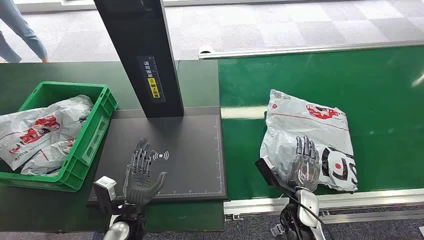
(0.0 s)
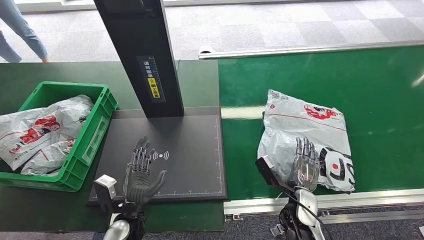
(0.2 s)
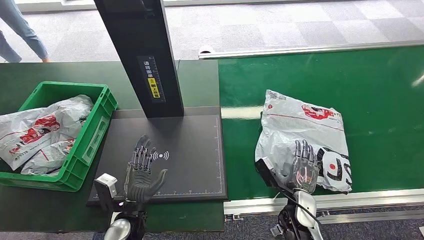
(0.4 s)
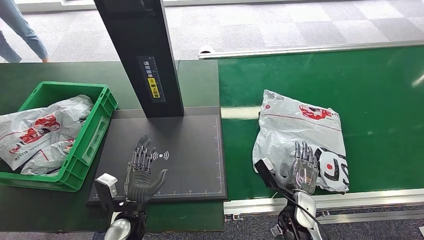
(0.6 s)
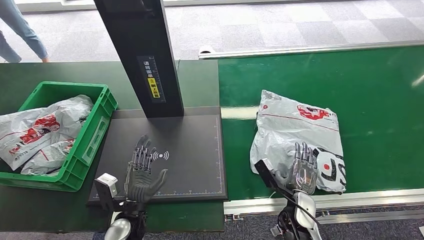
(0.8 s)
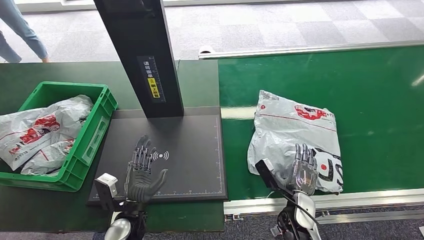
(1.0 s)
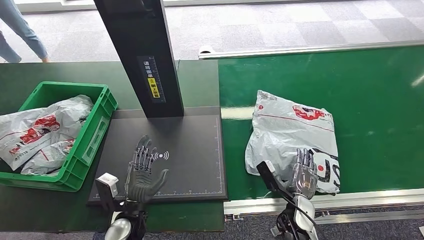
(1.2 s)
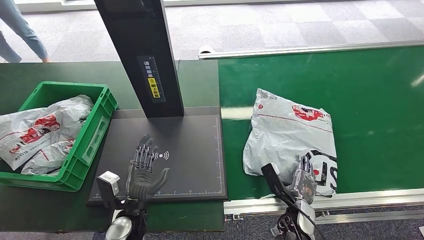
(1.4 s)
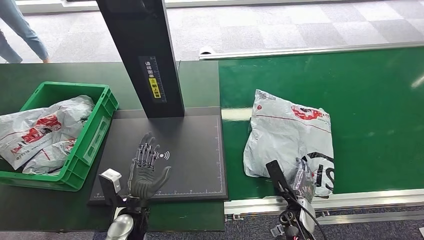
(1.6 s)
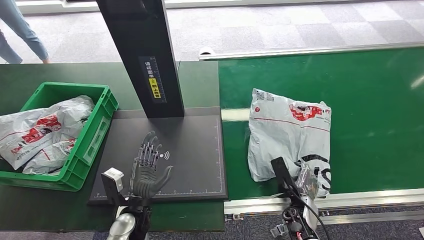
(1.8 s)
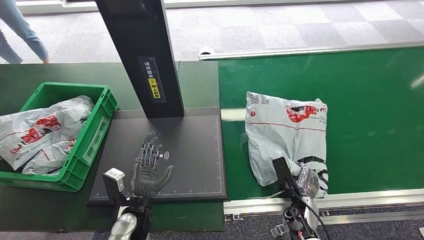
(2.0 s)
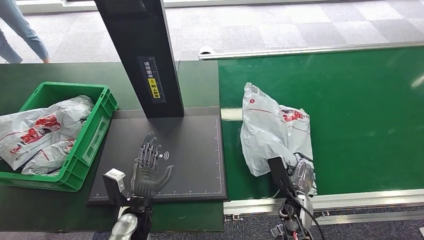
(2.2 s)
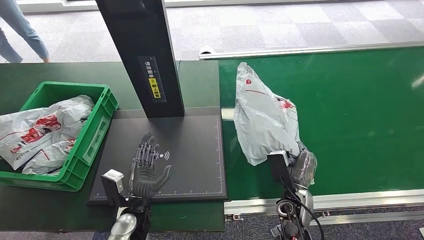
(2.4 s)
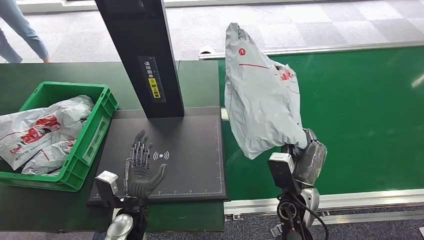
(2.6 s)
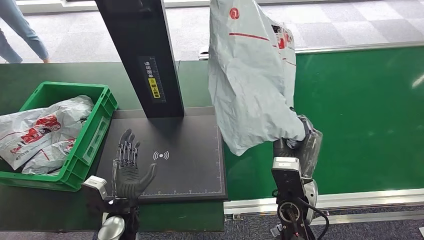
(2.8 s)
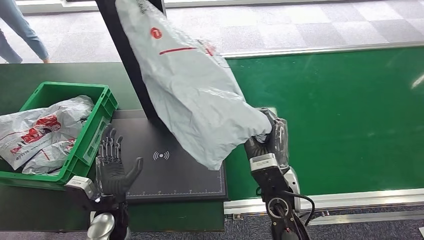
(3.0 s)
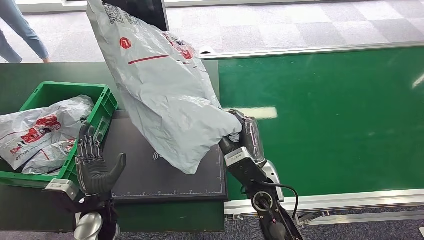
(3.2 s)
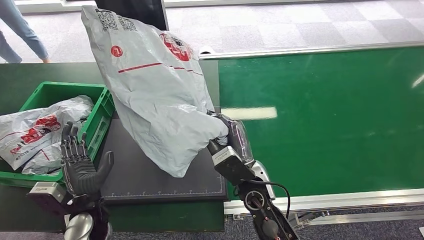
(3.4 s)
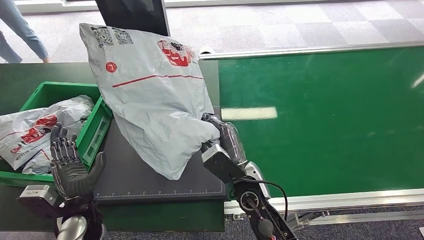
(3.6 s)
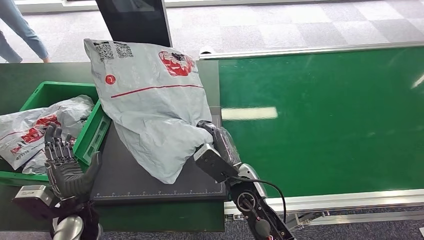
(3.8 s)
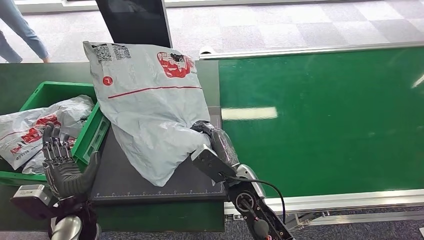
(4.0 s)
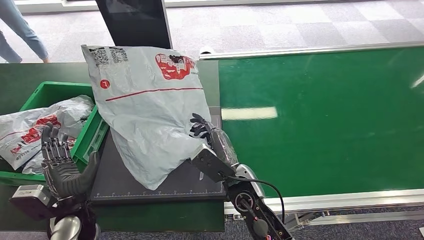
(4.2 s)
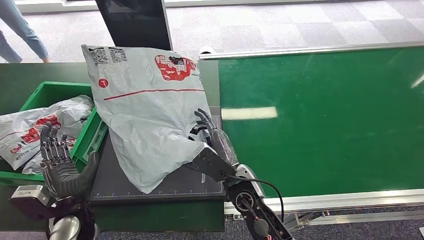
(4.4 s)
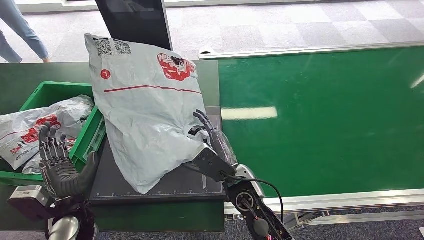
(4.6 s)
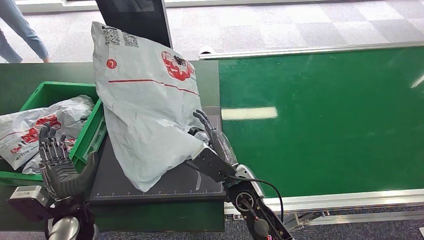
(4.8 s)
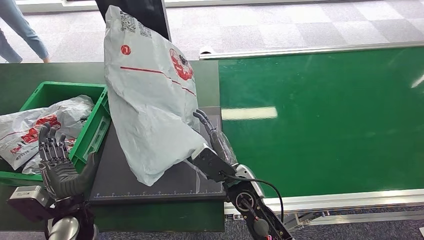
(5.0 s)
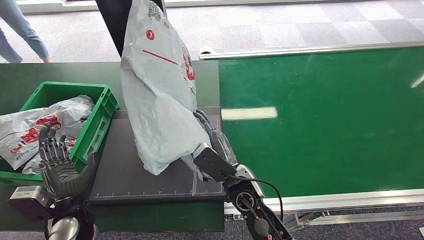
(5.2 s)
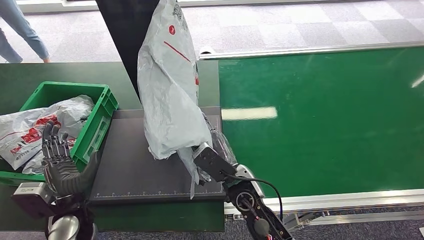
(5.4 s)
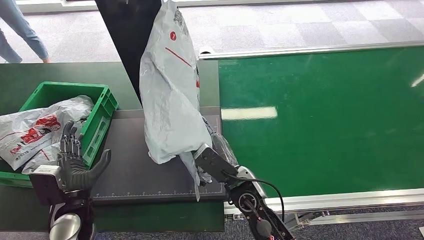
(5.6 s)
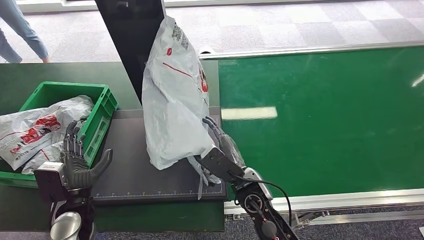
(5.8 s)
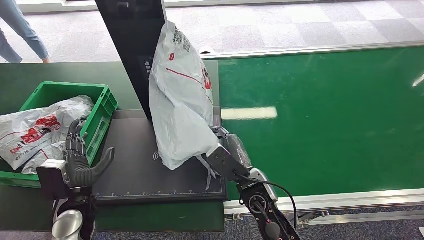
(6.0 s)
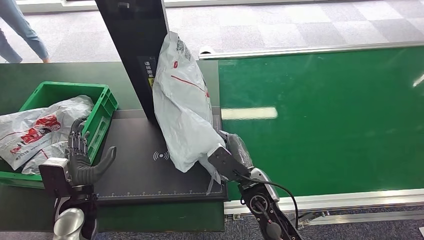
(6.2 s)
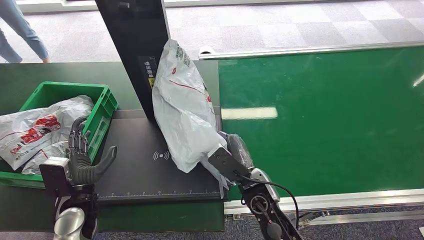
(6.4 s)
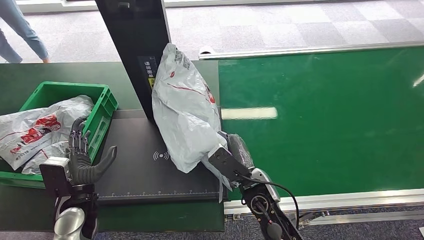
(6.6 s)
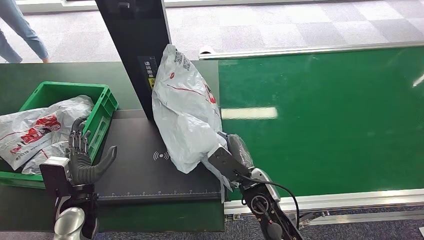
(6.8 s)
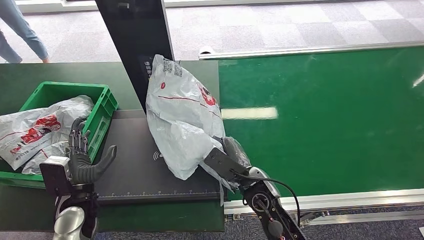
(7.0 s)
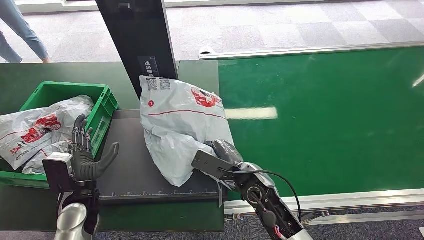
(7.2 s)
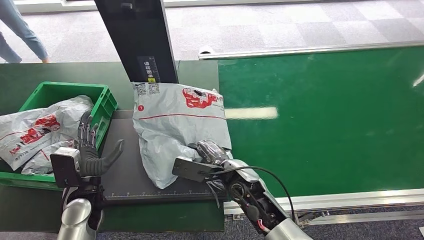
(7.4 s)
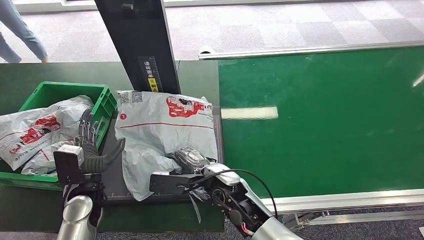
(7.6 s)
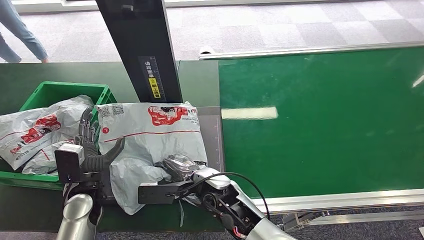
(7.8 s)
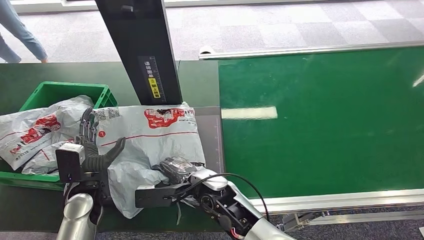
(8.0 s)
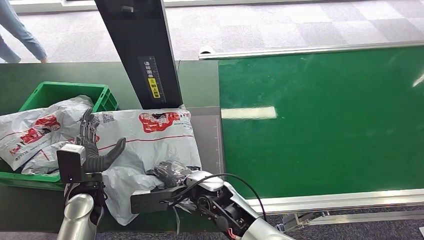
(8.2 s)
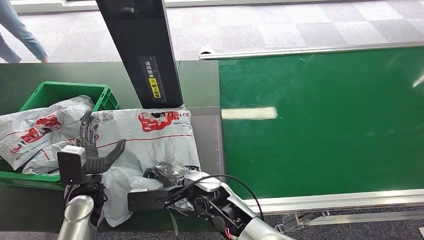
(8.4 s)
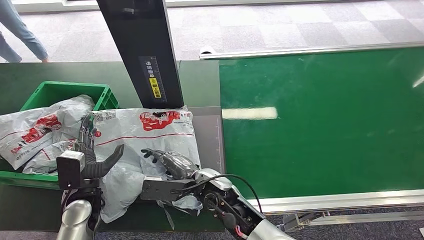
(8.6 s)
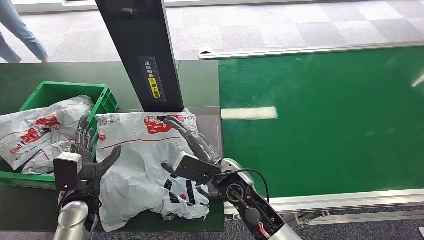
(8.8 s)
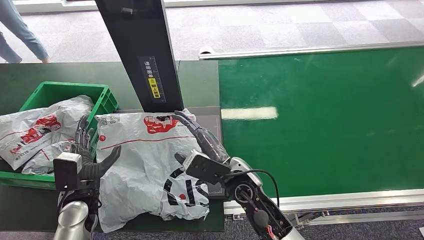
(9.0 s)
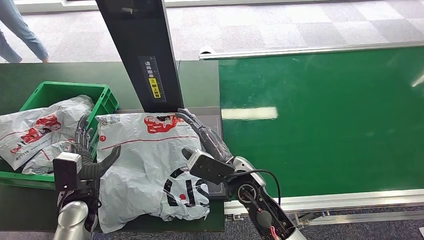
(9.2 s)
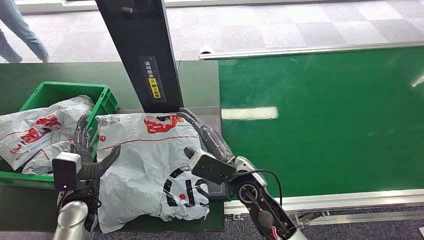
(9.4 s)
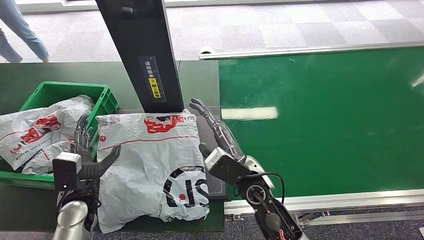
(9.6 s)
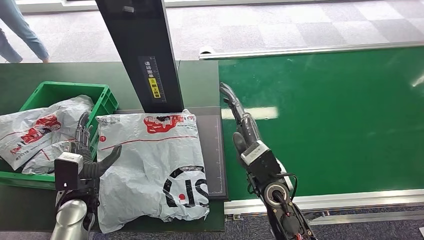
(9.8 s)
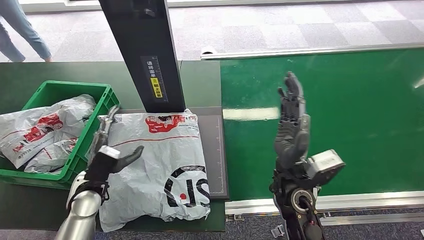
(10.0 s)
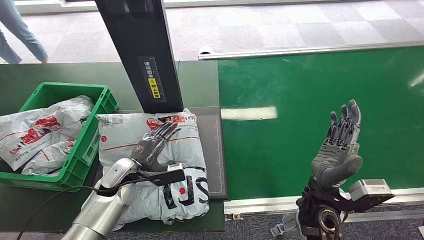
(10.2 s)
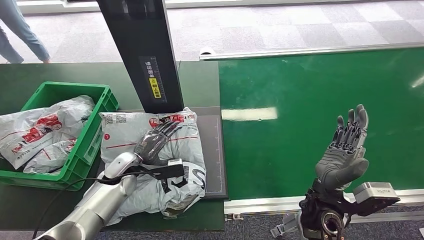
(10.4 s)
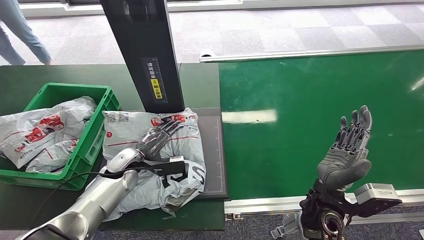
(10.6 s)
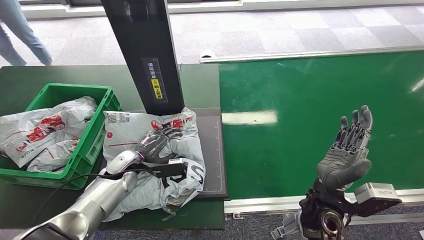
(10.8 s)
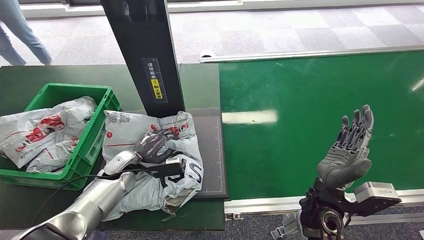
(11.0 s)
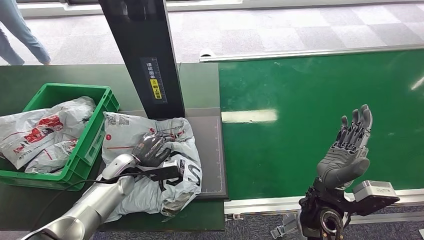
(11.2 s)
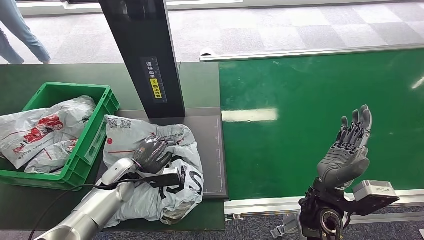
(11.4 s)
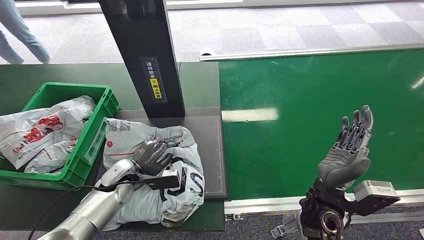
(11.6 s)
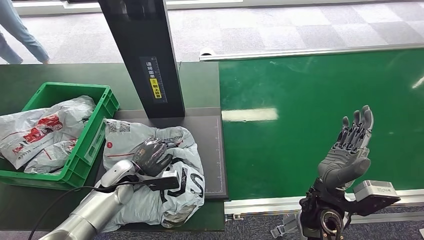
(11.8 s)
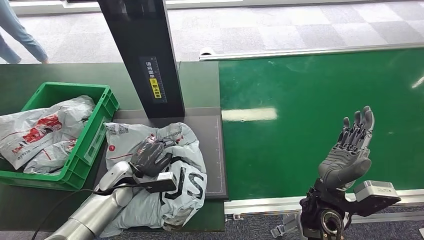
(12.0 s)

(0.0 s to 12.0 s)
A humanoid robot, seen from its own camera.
Step, 0.0 s - 3.4 s: Pick up the package from the conveyor belt.
Step, 3.6 s - 9.8 s: Place the package onto the inbound machine.
4.4 s - 6.0 s: The hands stay close to where they were, moving slightly.
6.0 s - 7.6 s: The right hand shifts roughly 5 cm to the left.
10.4 s - 12.0 s: The hands stay close to where they were, moving slightly.

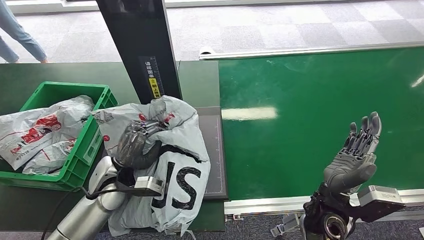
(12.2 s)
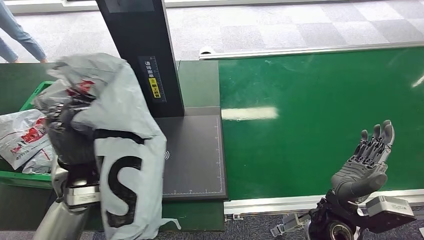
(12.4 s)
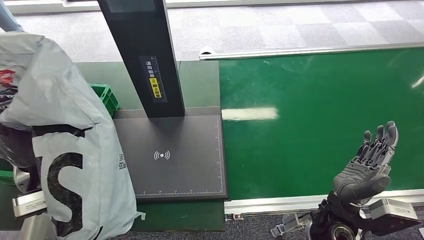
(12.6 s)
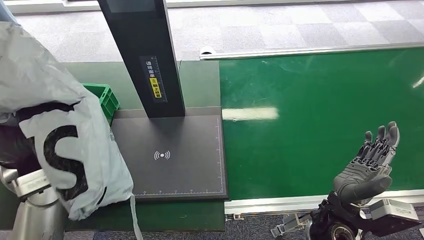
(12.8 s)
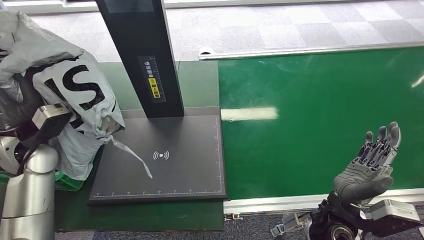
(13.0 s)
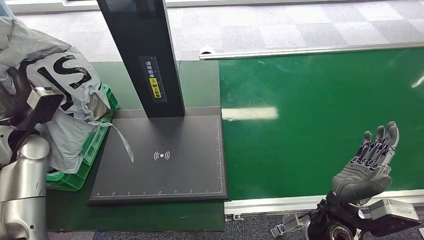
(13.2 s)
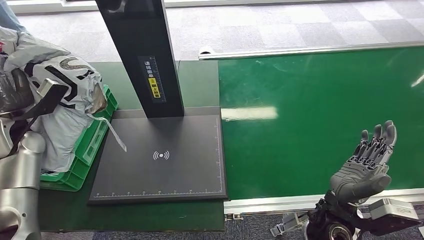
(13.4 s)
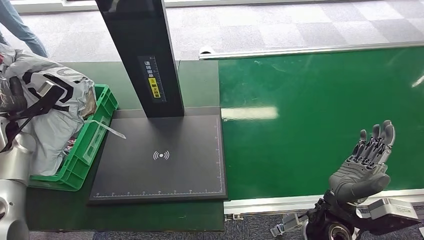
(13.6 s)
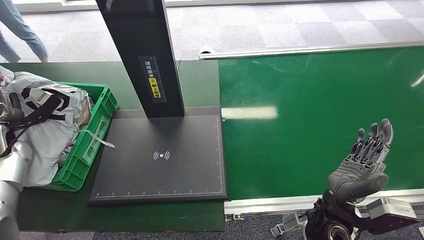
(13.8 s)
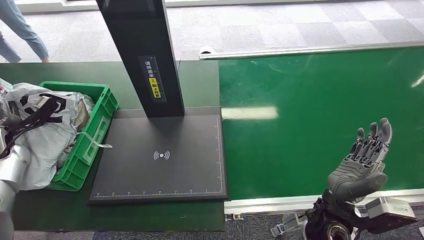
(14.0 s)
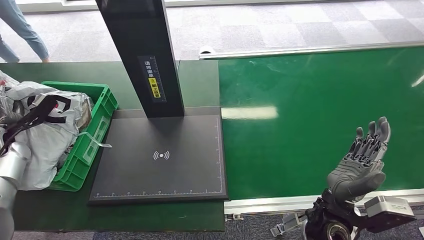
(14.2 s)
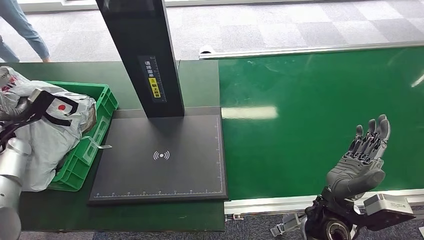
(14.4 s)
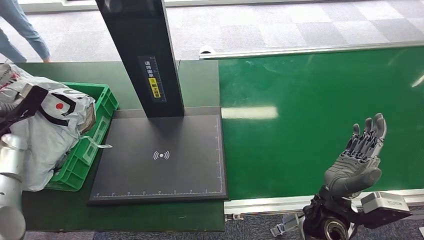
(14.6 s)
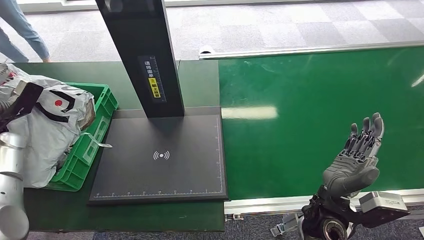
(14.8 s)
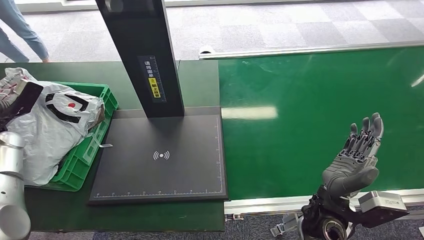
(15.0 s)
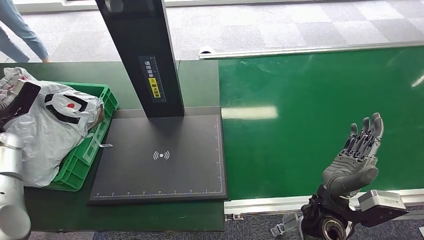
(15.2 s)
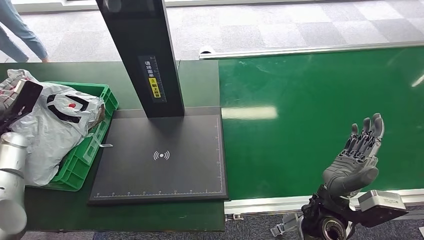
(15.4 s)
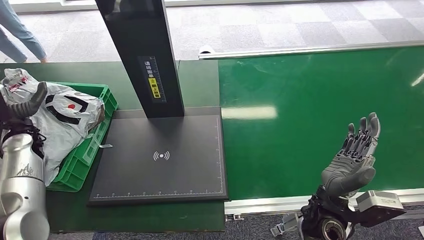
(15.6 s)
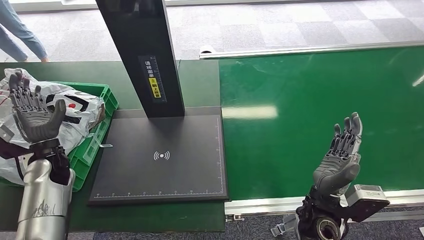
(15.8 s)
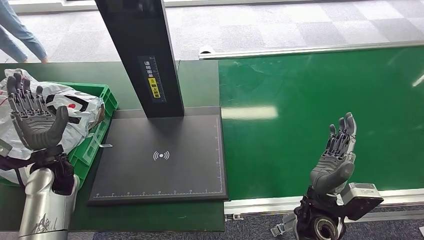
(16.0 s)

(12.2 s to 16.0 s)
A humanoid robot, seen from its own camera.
Step, 12.6 s - 16.0 s: Place the package into the parcel locker.
13.4 s - 14.8 s: The left hand heads to the left, covering approximately 10 cm.
14.8 s - 16.0 s: The left hand heads to the right, covering roughly 15 cm.

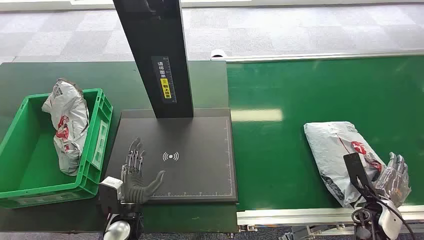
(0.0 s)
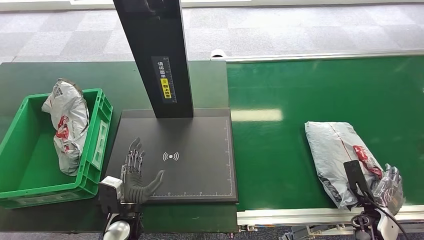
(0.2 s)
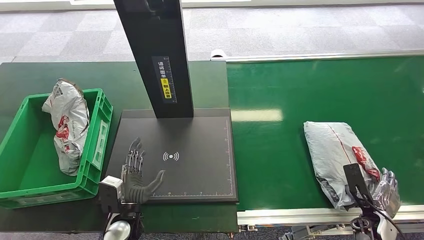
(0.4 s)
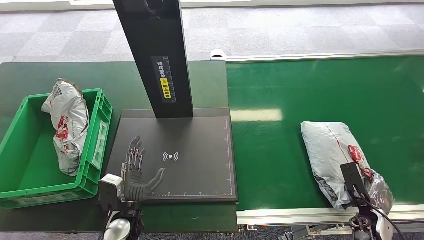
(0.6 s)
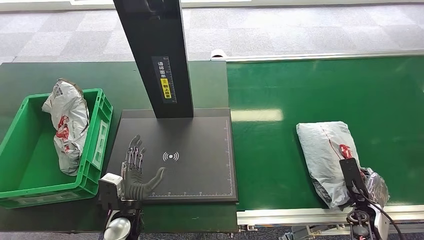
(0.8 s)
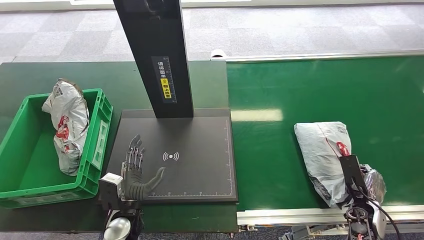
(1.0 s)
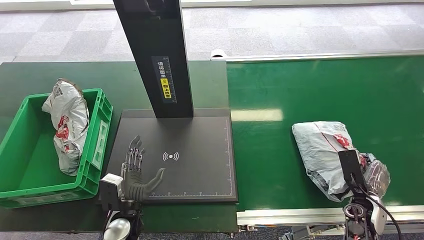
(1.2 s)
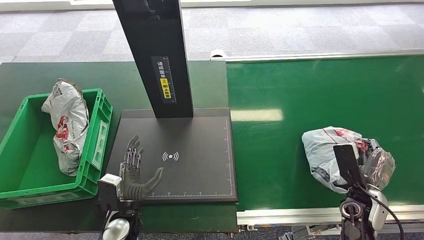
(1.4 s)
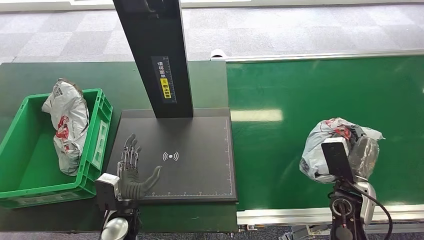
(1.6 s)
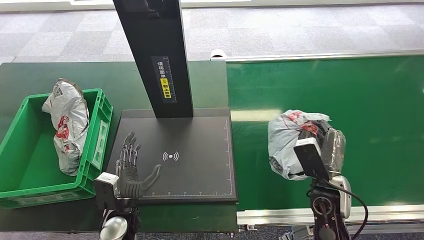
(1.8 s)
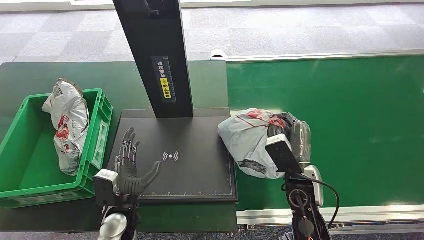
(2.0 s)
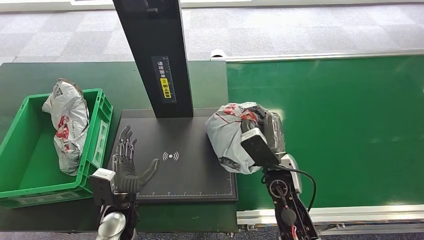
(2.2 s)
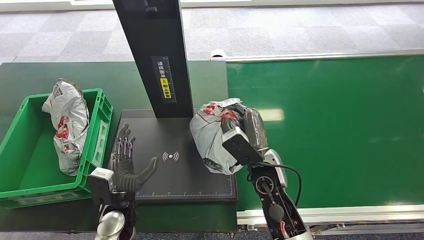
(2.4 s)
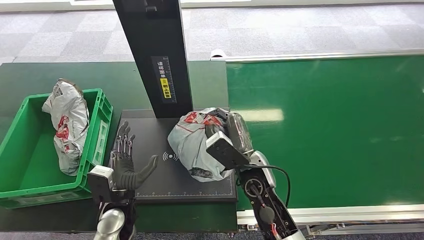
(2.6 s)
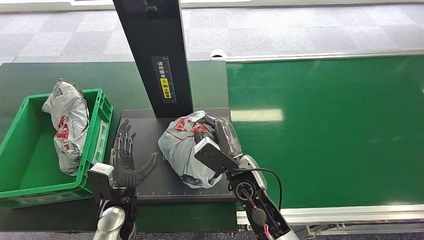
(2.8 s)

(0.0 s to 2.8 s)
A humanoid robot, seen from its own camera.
Step, 0.0 s - 2.0 s: Pick up the package from the conveyor belt.
1.4 s - 2.8 s: The right hand travels to the left by some 30 cm.
